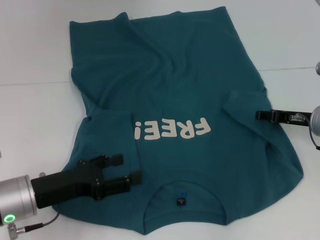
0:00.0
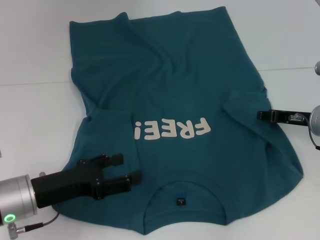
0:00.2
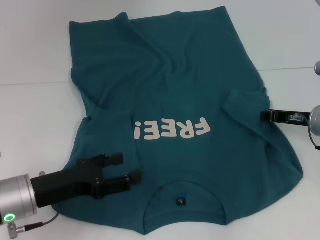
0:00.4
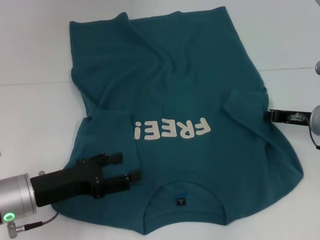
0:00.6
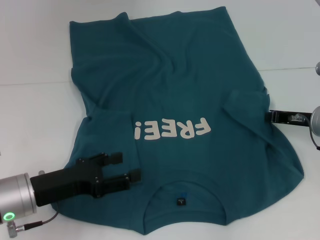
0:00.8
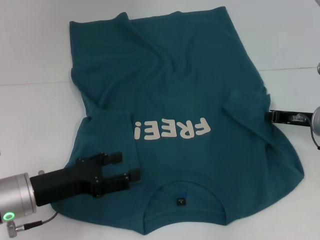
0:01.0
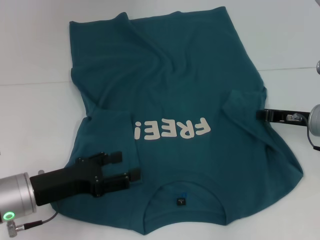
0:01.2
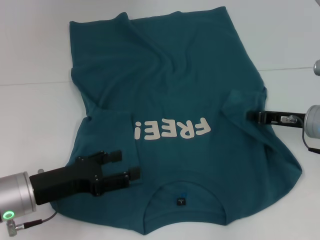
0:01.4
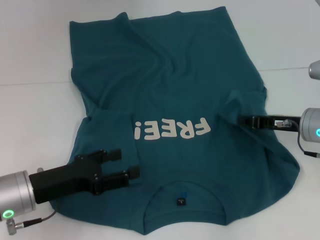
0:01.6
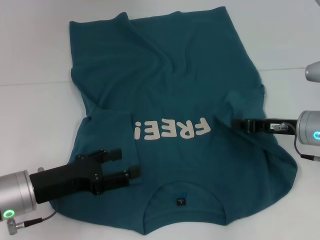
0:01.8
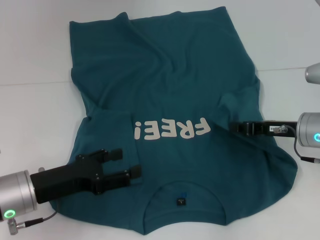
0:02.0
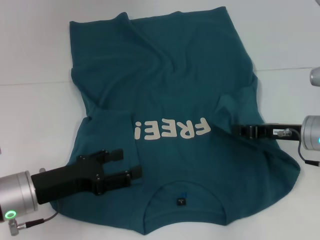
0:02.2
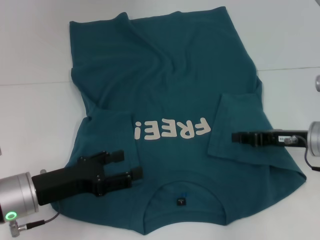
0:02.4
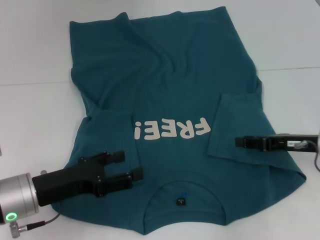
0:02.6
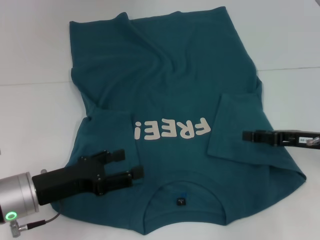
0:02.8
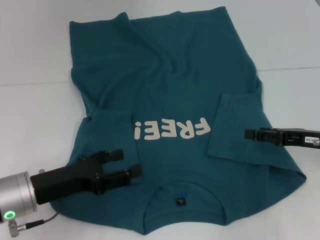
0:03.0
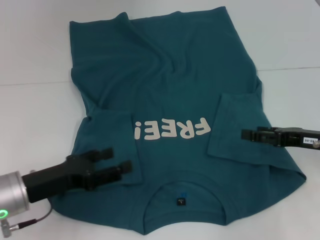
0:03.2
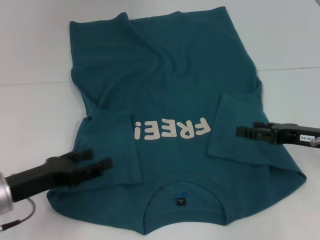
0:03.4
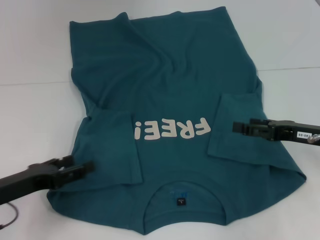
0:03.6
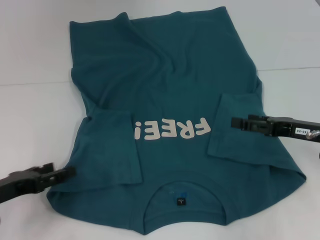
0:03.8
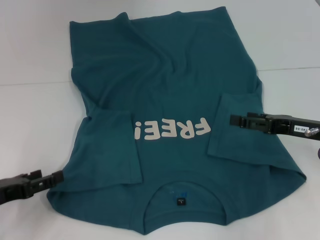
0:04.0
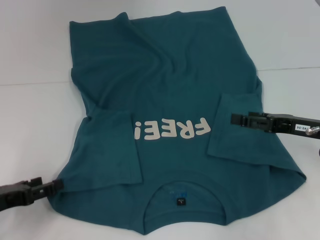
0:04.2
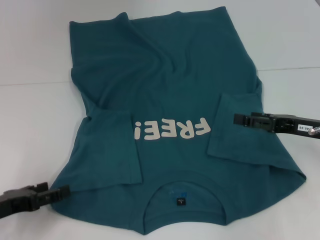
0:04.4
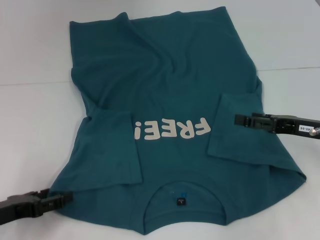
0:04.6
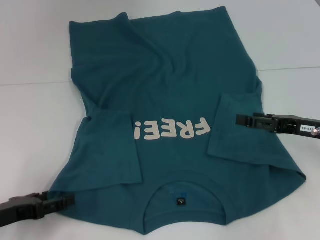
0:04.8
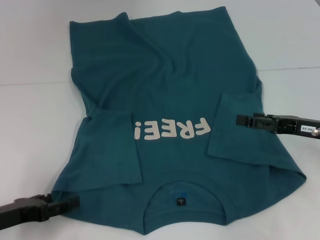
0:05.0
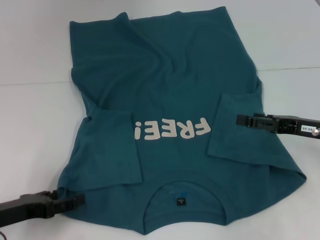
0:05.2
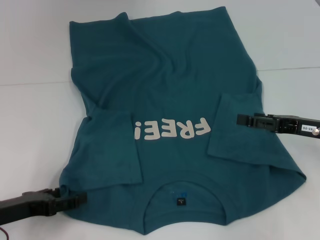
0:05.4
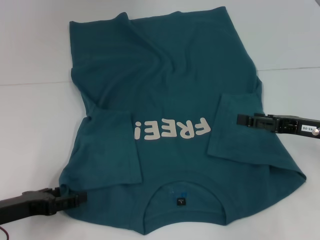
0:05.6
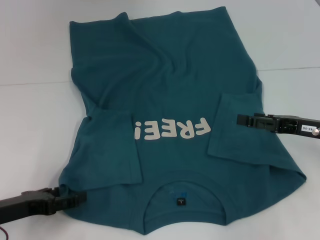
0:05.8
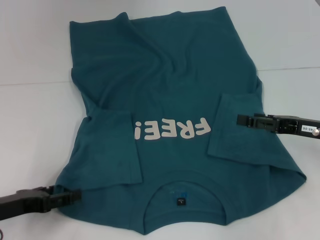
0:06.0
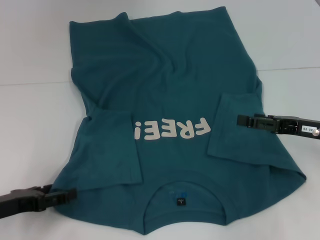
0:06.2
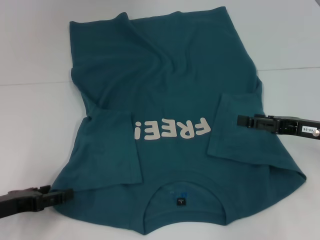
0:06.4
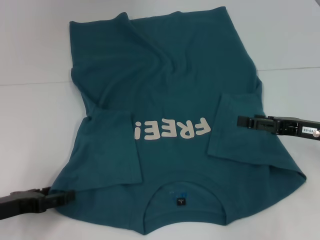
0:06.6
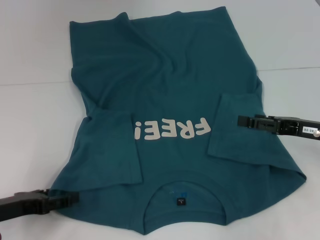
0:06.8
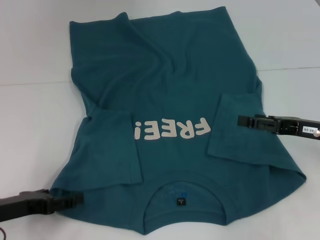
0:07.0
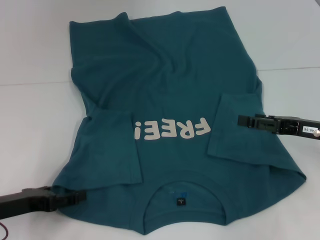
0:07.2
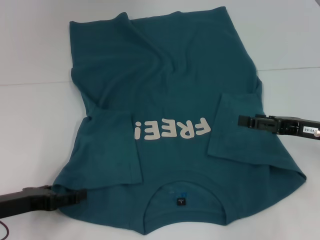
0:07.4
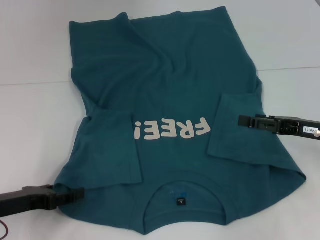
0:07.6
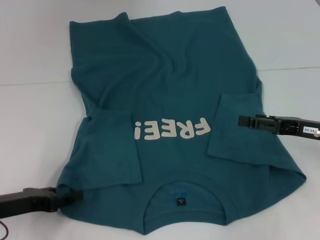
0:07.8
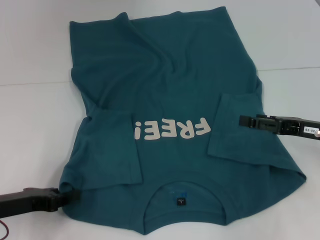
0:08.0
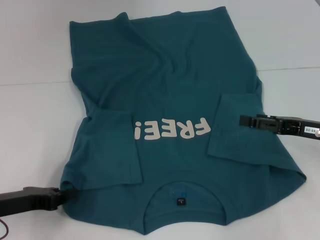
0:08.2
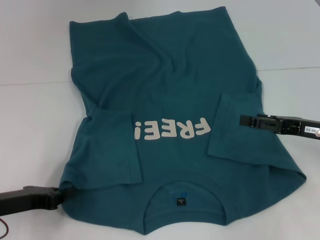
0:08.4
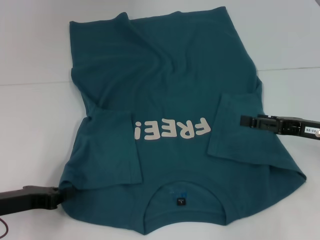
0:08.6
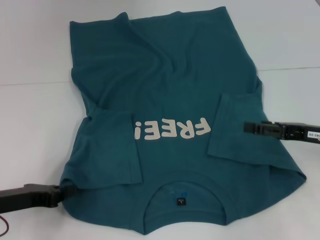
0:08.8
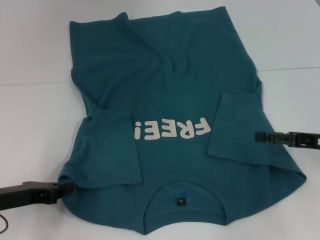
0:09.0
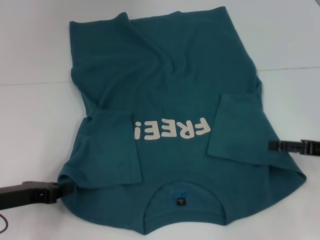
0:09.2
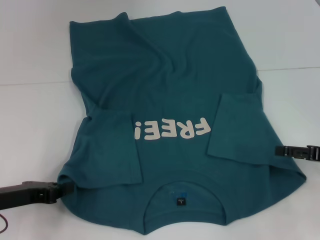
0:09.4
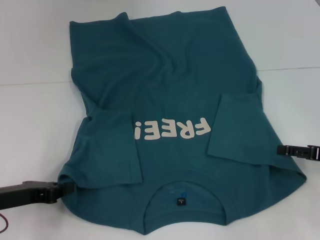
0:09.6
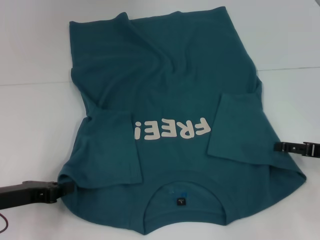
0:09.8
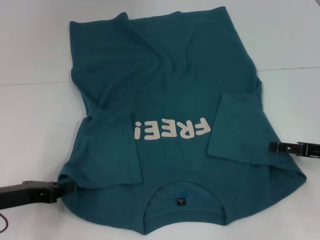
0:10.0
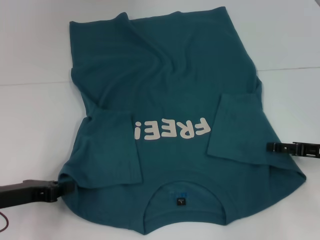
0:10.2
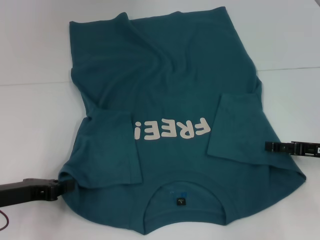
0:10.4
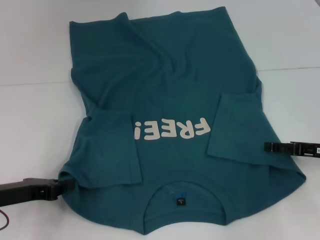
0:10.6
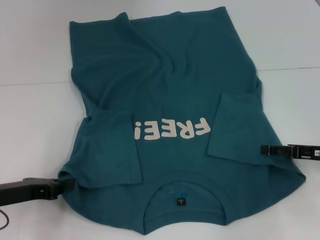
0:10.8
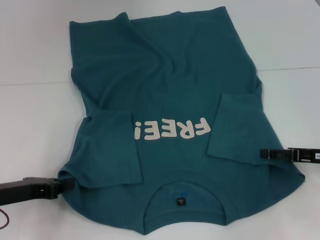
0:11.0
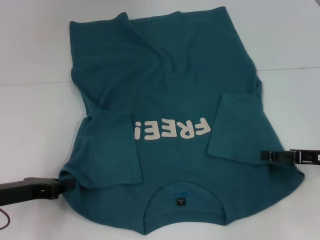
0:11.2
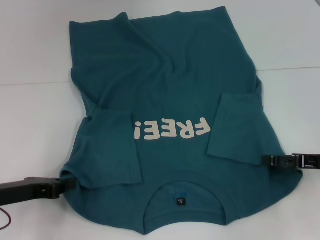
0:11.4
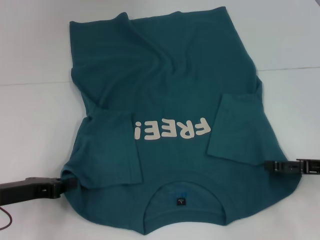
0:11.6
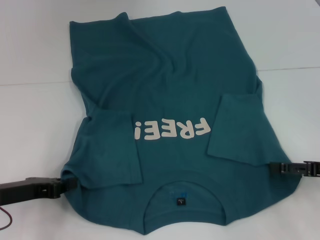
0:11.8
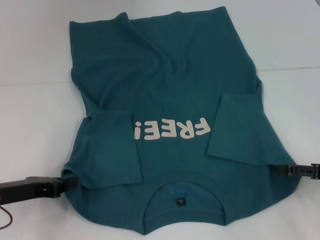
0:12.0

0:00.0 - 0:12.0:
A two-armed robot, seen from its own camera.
Step, 0:00.0 - 0:02.6: Fold the bottom right sleeve to the right.
Step, 0:02.8 - 0:08.8: Grab the bottom left corner with your left hand.
0:00.0 - 0:01.6: The right gripper closes up.
0:01.6 - 0:03.0: The right gripper moves about 5 cm, and opens its fingers.
0:03.0 - 0:04.4: The left gripper travels to the left by approximately 10 cm.
0:04.4 - 0:06.0: The grippers stay close to where they were, moving slightly.
0:06.0 - 0:07.6: Neither gripper changes place.
0:07.6 - 0:09.0: The left gripper closes its fingers.
0:09.0 - 0:10.4: The grippers move only a little.
0:10.4 - 0:12.0: The right gripper changes place by some 5 cm.

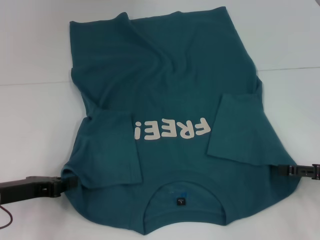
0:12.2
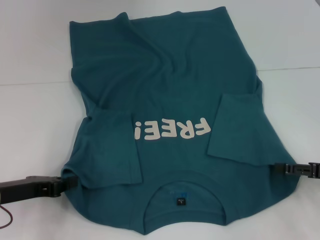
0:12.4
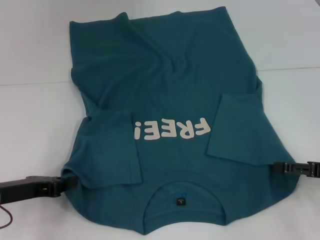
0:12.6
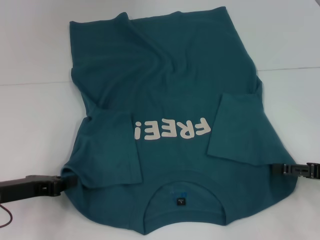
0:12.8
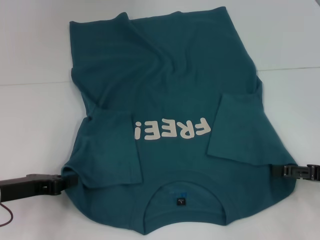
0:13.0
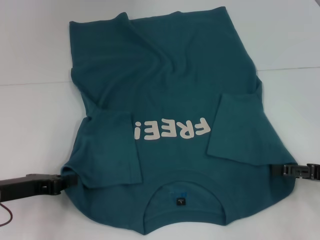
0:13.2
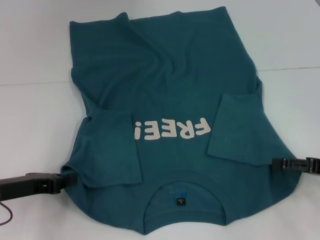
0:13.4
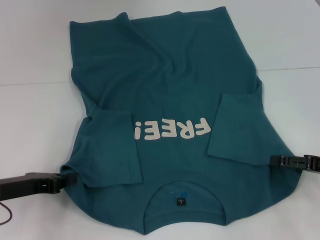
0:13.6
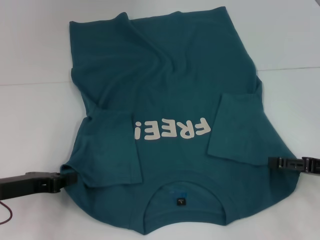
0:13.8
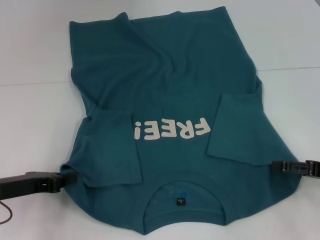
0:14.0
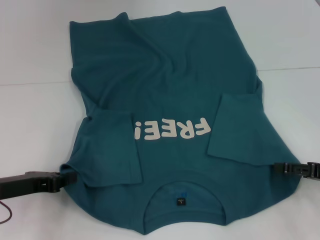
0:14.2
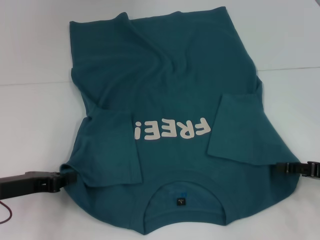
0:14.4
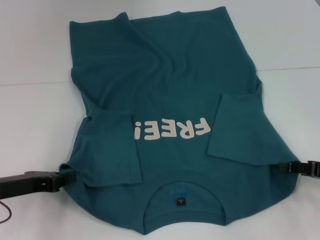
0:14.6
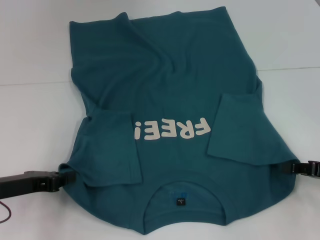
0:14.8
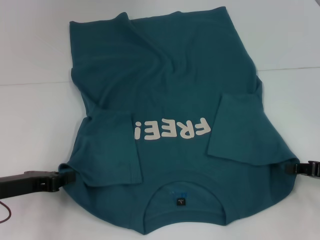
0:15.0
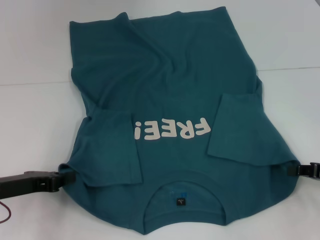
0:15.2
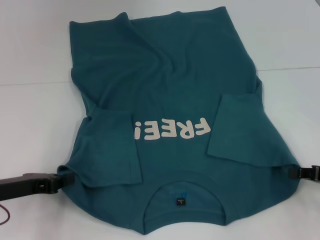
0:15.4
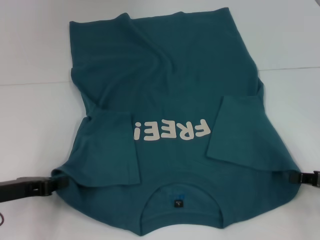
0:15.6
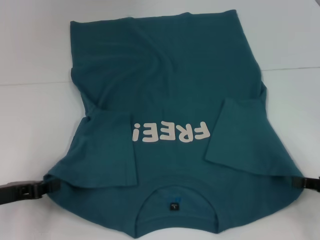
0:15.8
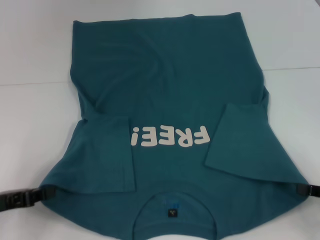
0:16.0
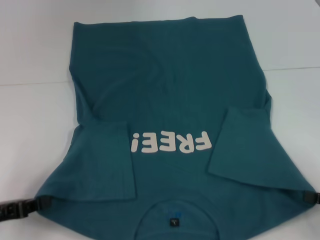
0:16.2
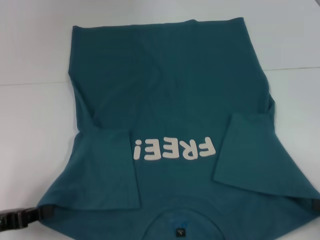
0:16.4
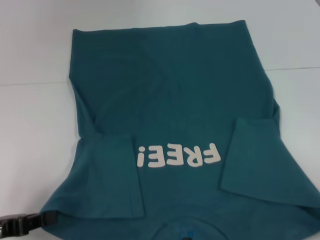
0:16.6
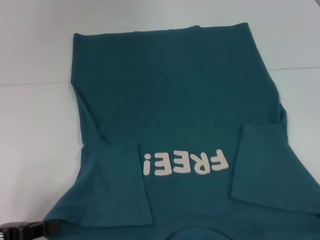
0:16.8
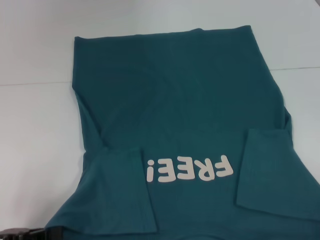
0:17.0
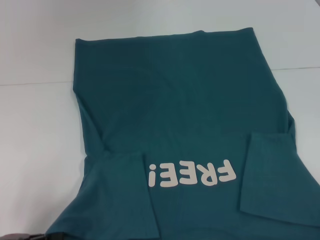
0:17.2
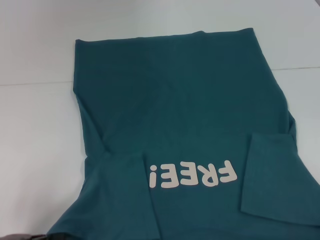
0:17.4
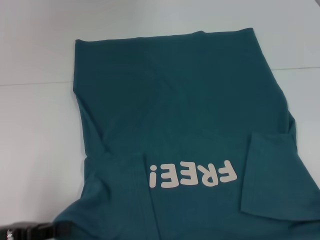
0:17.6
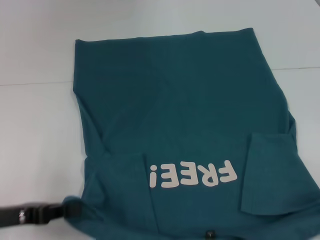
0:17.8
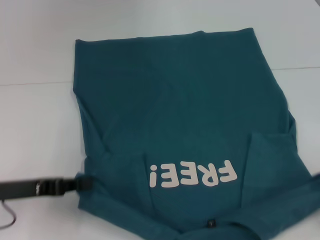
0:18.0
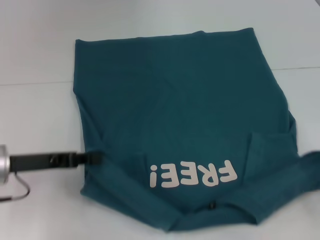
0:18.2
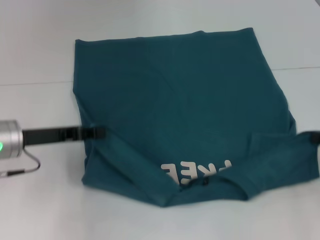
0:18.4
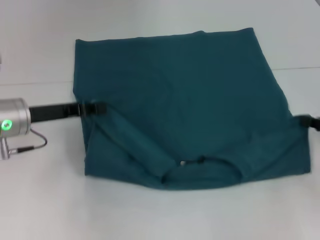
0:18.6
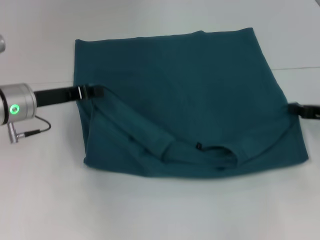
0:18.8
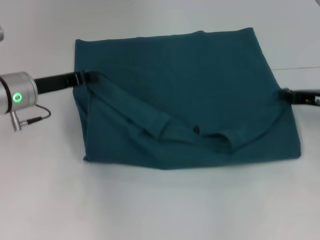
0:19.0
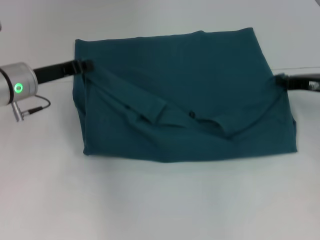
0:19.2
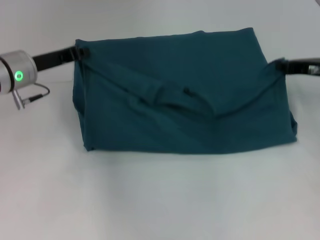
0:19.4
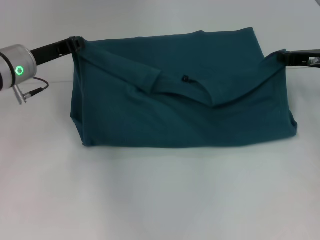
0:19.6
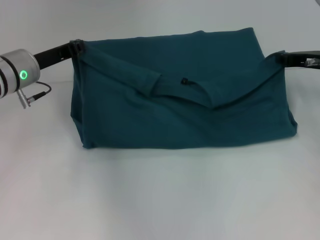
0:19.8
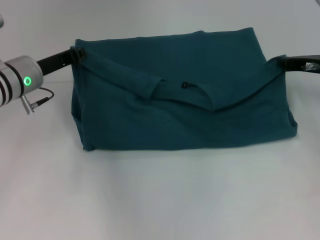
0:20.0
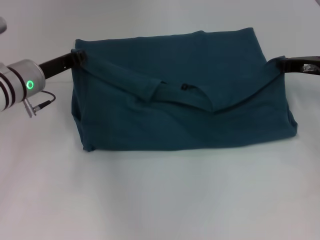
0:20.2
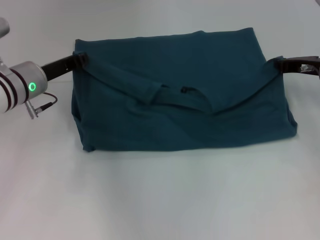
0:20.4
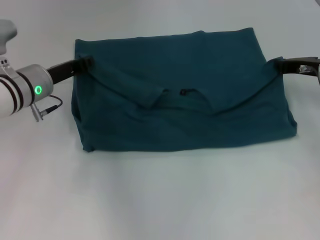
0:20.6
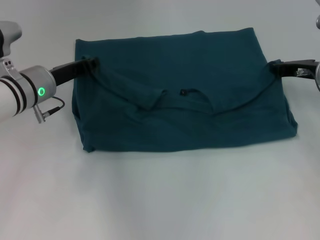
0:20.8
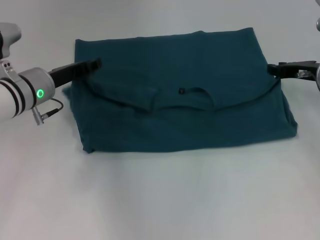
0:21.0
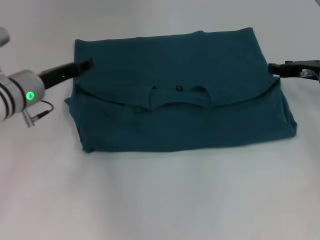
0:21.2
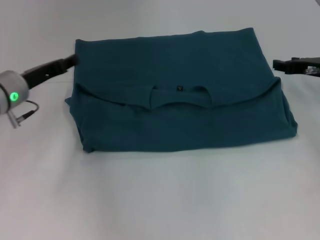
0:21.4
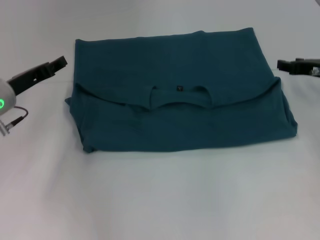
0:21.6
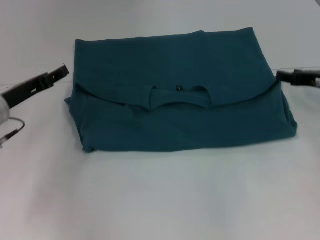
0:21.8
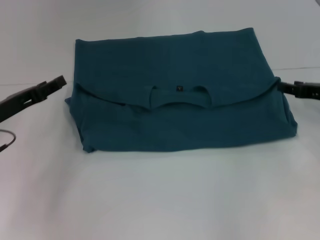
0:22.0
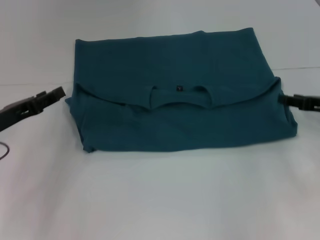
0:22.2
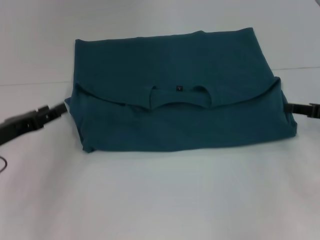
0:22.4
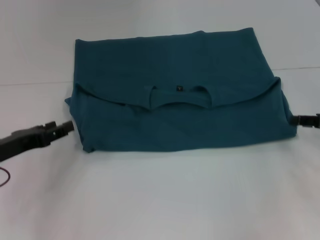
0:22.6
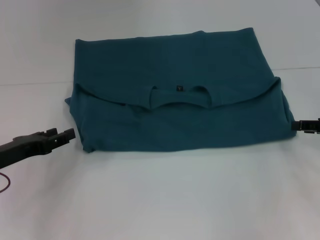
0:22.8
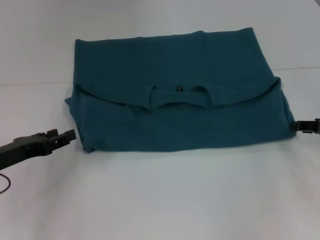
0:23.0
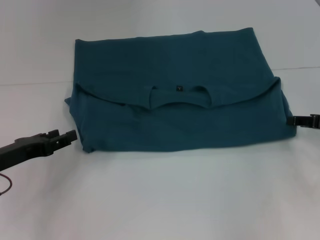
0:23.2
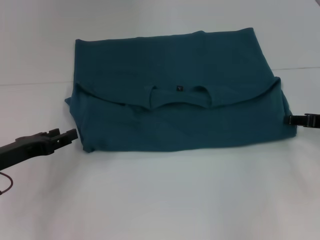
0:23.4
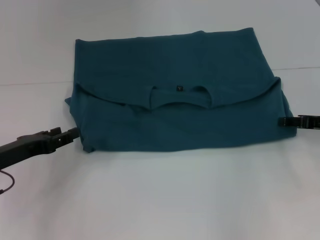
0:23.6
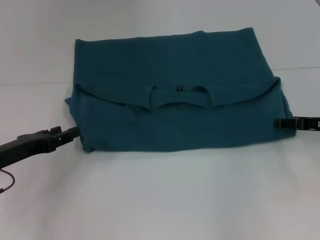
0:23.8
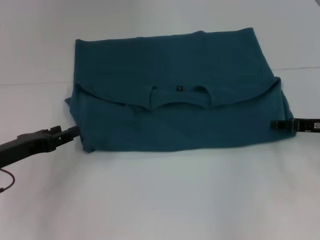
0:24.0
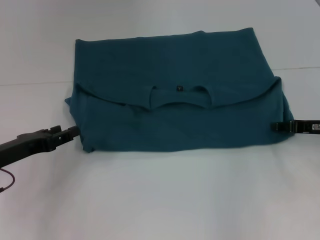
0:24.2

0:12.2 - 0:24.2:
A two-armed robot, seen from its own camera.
Step, 0:12.2 - 0:15.8: Grab the bottom right corner with your right hand.
Step, 0:16.0 - 0:21.0: Fold the clothes to the left.
Step, 0:16.0 - 0:21.0: Fold the clothes to the right.
0:12.2 - 0:13.8: The grippers make only small movements.
0:13.8 - 0:15.2: The right gripper closes up.
0:15.2 - 0:16.6: The grippers both shift backward by roughly 10 cm.
0:16.6 - 0:18.2: The right gripper travels forward by approximately 5 cm. Meanwhile the left gripper shifts some 10 cm forward and to the right.
0:18.2 - 0:19.8: The right gripper travels forward and to the left by some 20 cm. The left gripper is displaced forward by approximately 10 cm.
0:19.8 - 0:21.2: The left gripper opens up.
0:21.2 - 0:22.6: The right gripper shifts some 10 cm backward and to the right, and opens up, while the left gripper heads backward and to the left, covering approximately 15 cm.
0:22.6 - 0:24.2: The right gripper moves some 5 cm.
